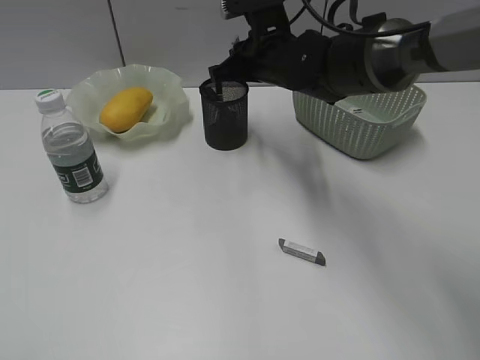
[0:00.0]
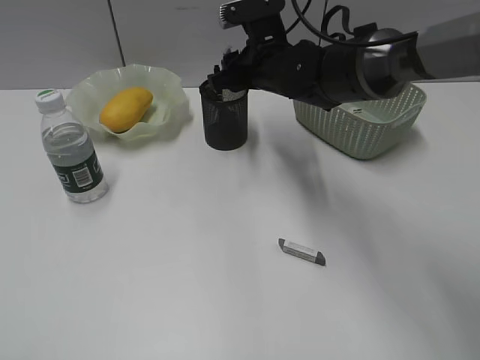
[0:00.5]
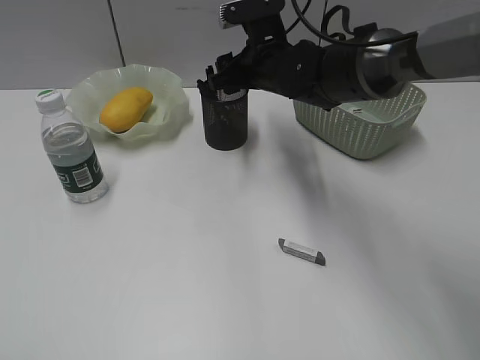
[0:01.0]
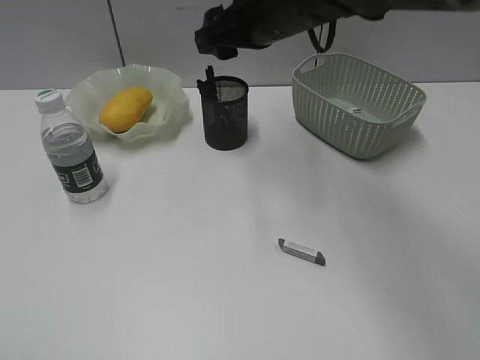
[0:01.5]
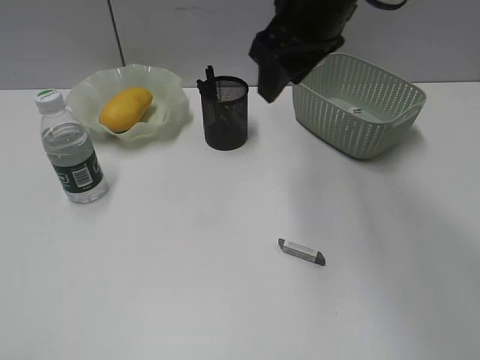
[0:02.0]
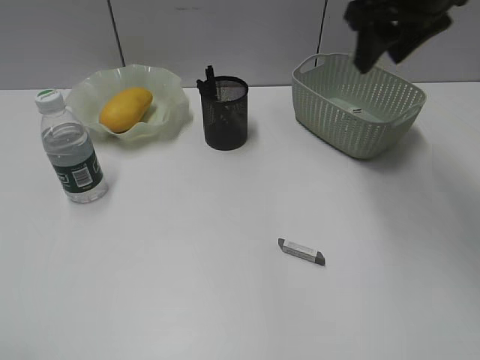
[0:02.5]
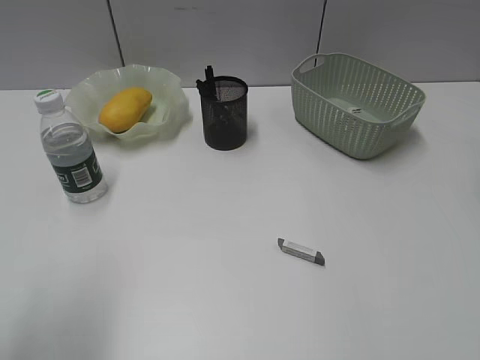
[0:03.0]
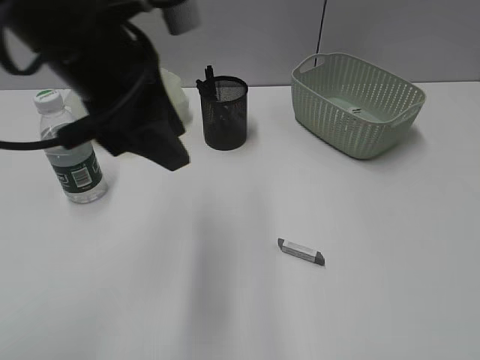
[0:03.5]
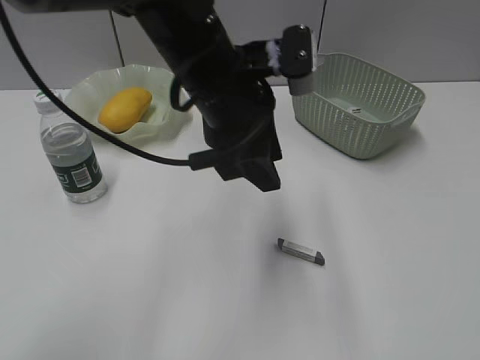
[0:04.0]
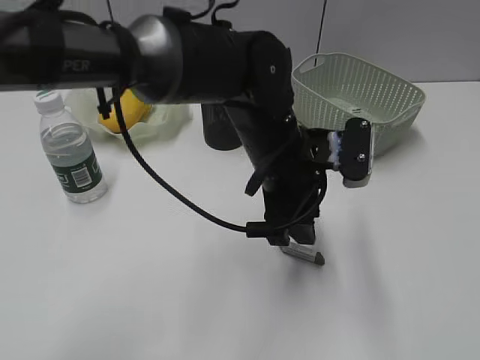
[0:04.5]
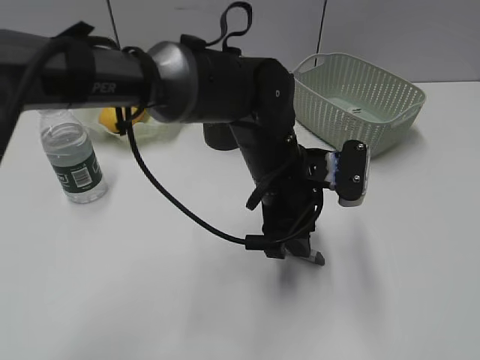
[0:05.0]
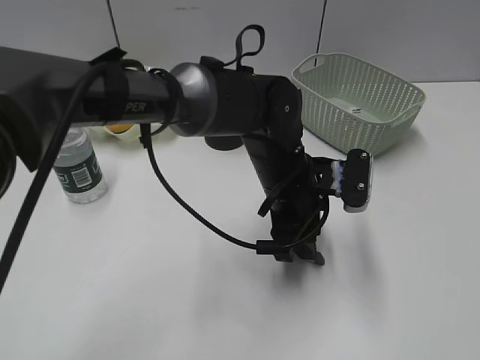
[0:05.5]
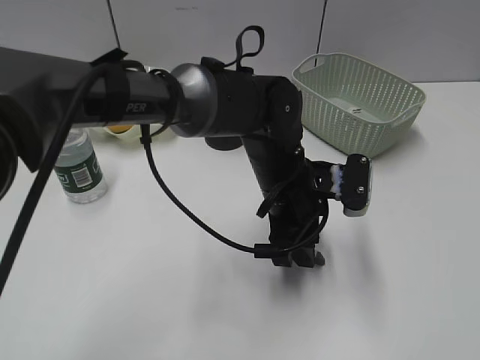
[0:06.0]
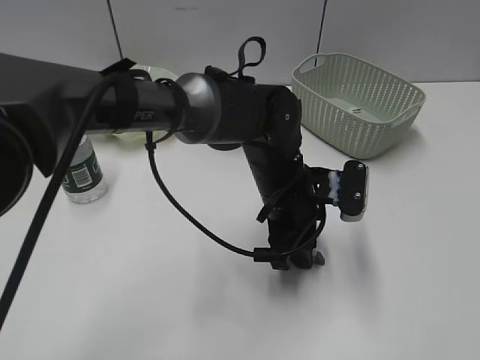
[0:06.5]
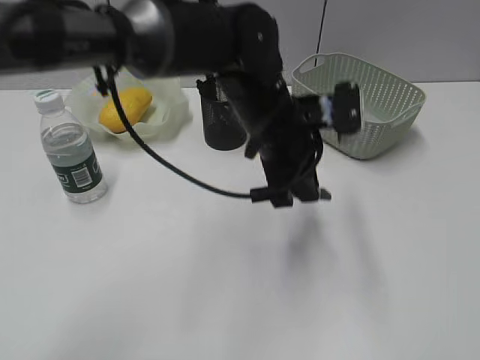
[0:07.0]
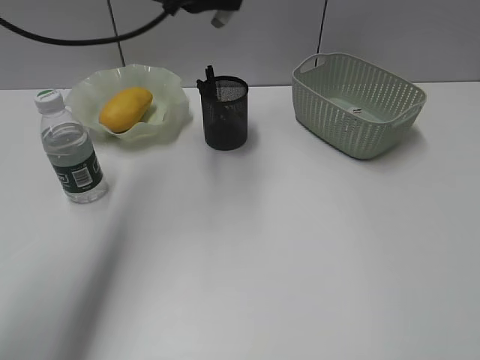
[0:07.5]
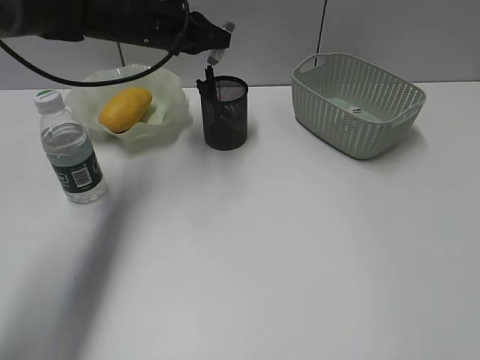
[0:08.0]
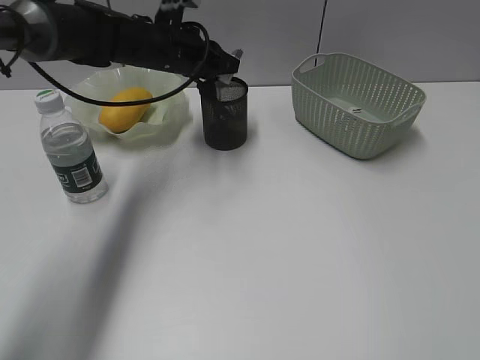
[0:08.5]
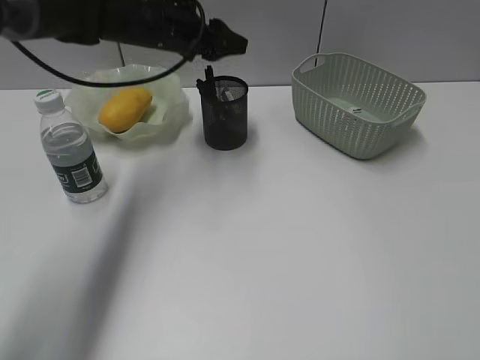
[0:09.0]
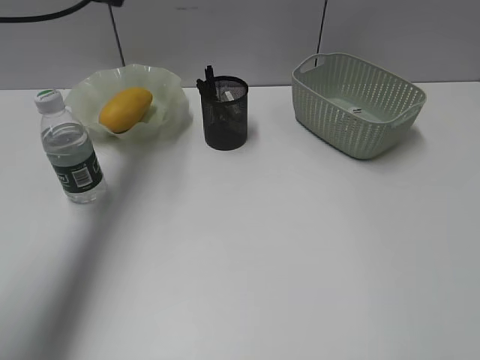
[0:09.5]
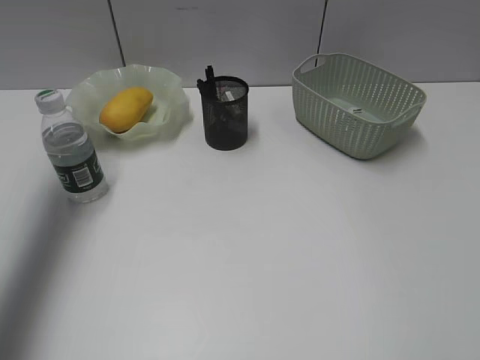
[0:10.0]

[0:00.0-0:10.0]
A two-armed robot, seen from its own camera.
Step, 0:01.5 to 0:06.5: Grasp the eraser with left gripper.
Step, 0:07.0 to 0:08.5: Place the eraser in pen holder with left gripper.
0:00.0 to 0:02.0: The right gripper shifts approximately 15 cm upward and backward, and opens its fingers.
0:02.0 to 0:04.0: The right gripper moves backward and to the right, roughly 35 cm. The left gripper shifts about 40 cm forward and to the right.
0:04.0 to 0:06.0: The left gripper is displaced downward and to the right by roughly 15 cm. Meanwhile the right gripper travels backward and downward by roughly 10 cm.
0:06.0 to 0:08.0: The left gripper goes roughly 25 cm forward, to the left and upward, and closes up.
0:08.0 to 0:10.0: The left gripper moves to the left, upward and backward, approximately 30 cm, and opens up.

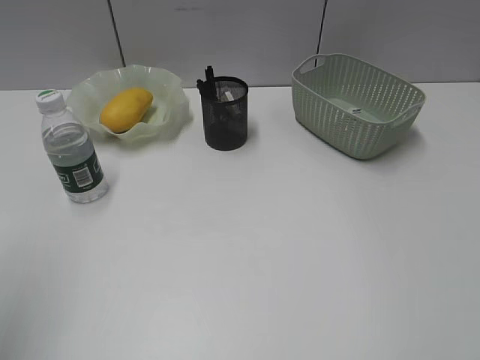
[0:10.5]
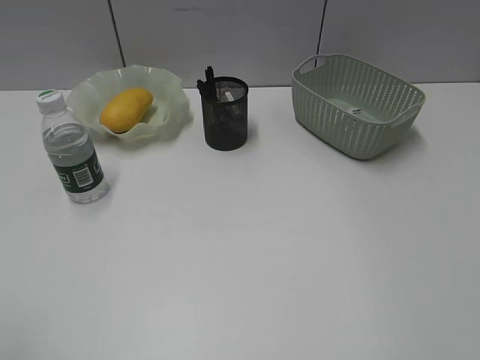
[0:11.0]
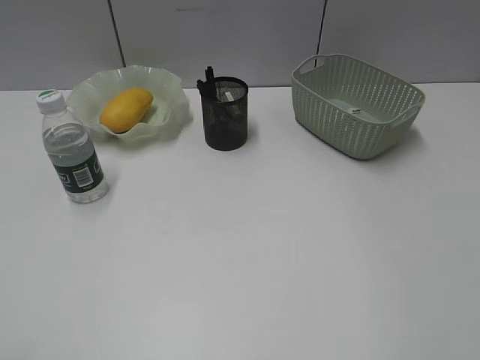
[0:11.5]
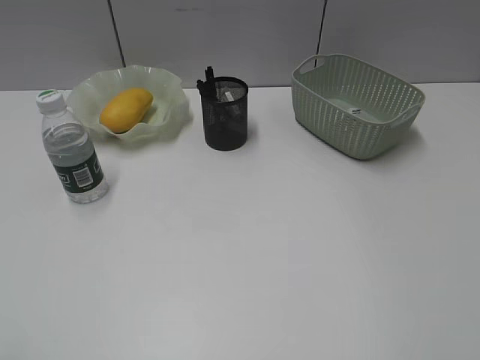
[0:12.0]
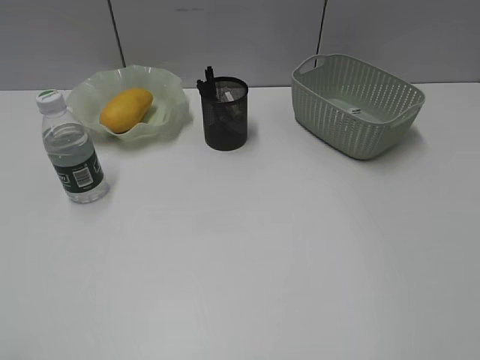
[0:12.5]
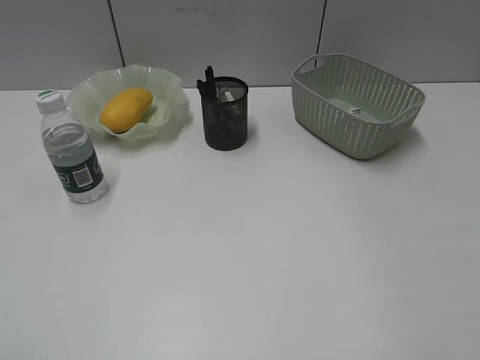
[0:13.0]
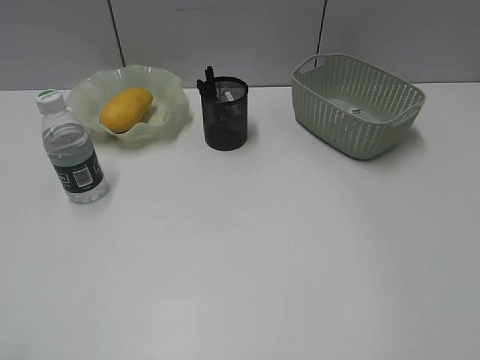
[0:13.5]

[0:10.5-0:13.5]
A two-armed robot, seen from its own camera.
0:10.5 to 0:12.0: The left gripper goes about 15 cm backward and downward.

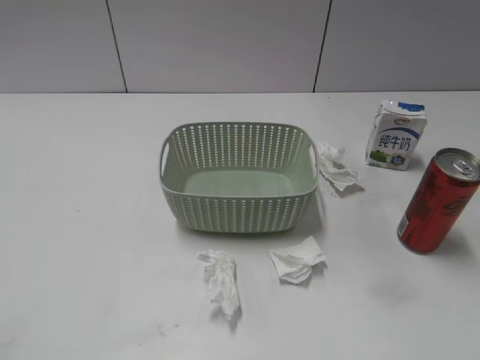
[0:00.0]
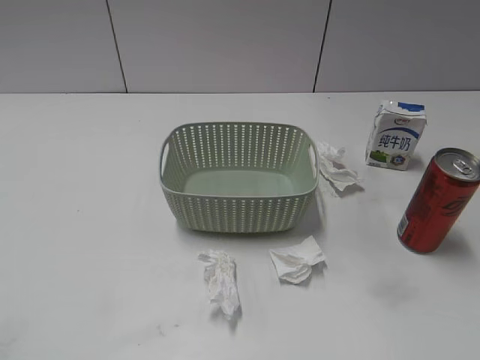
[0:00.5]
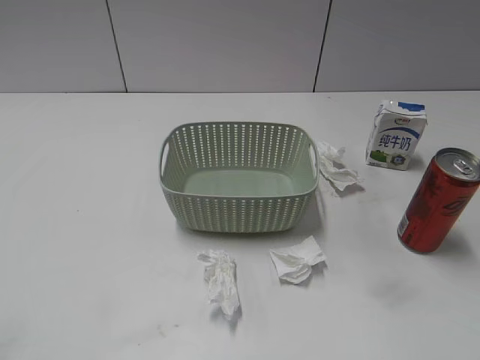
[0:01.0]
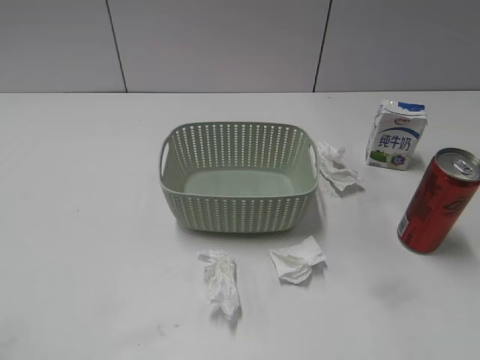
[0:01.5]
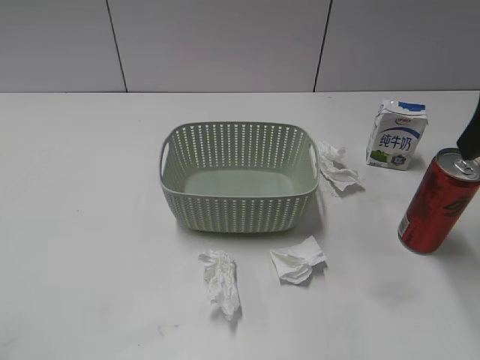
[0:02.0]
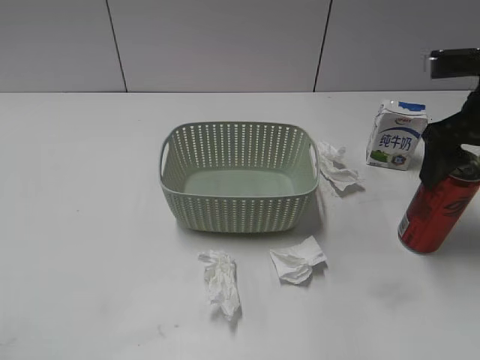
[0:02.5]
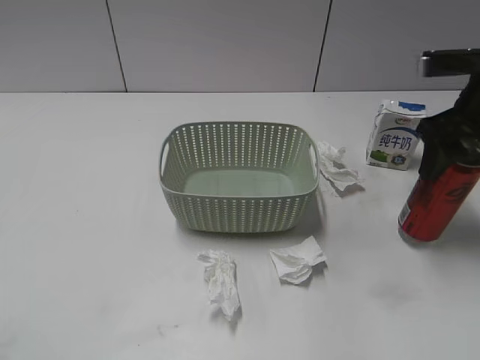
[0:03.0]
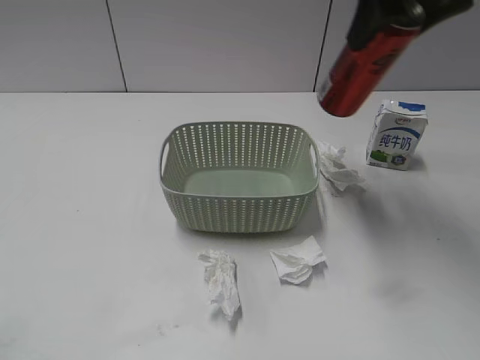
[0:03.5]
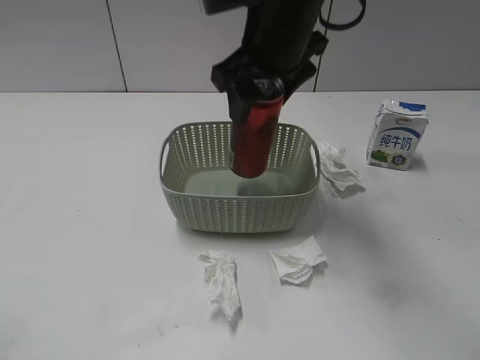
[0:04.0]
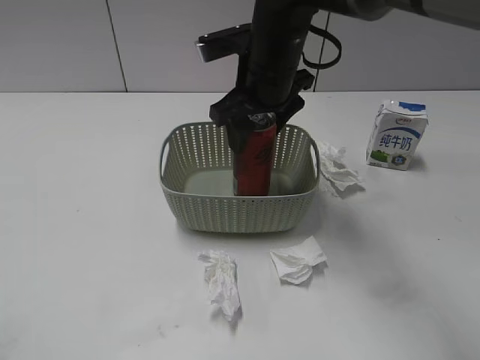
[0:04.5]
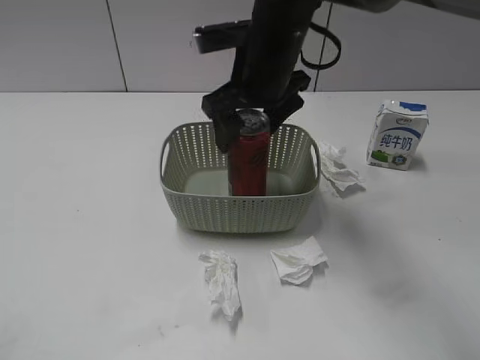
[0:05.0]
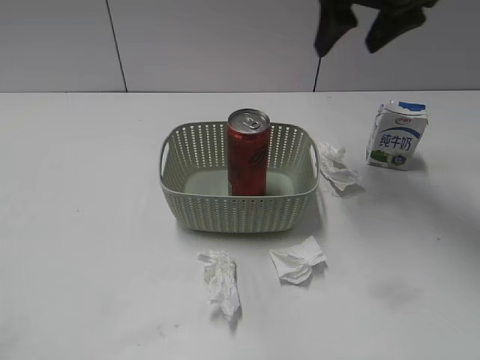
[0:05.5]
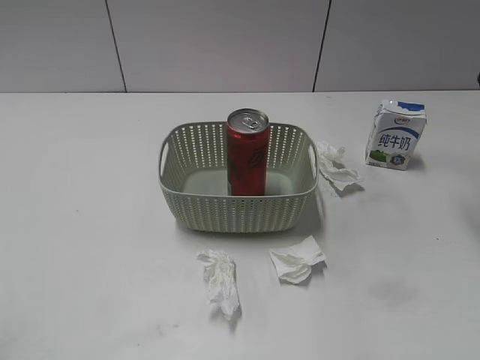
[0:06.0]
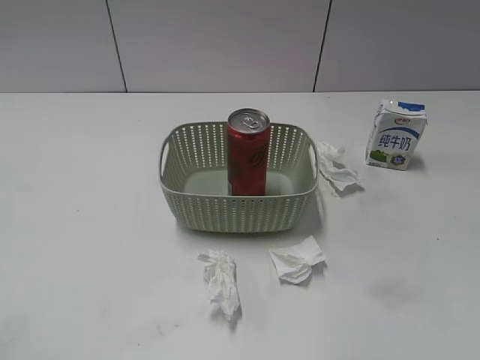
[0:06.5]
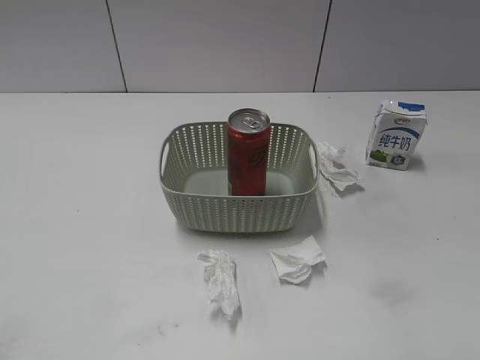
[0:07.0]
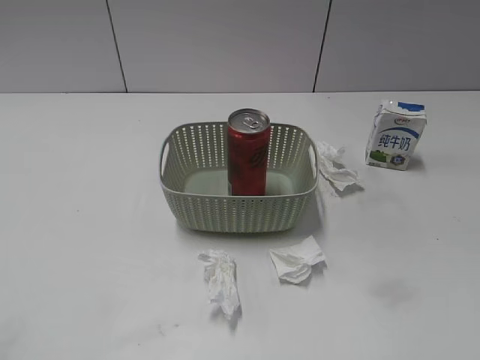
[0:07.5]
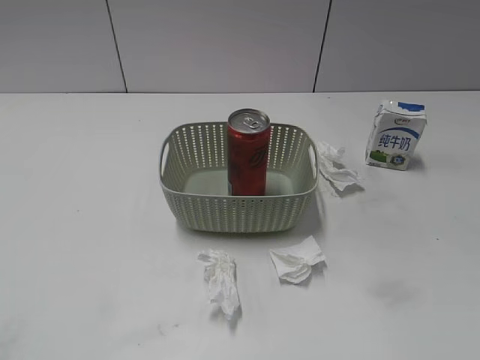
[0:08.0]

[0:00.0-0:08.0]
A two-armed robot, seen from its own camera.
Step, 0:02.0 to 0:02.5: Grasp the cola can with right gripper.
Step, 0:03.0 to 0:05.0: Place the cola can in the basket with right gripper.
0:02.0 to 0:04.0: The right gripper is displaced to the left and forward by about 25 cm, and closes.
0:04.0 to 0:06.0: The right gripper is displaced to the right by some 25 cm, and opens up.
